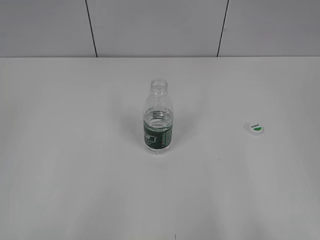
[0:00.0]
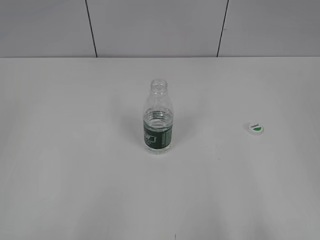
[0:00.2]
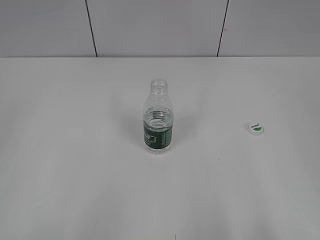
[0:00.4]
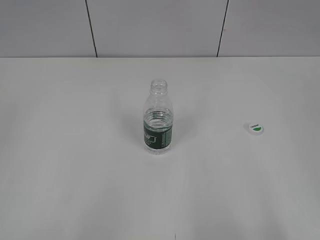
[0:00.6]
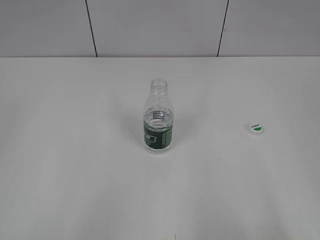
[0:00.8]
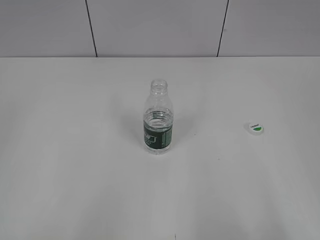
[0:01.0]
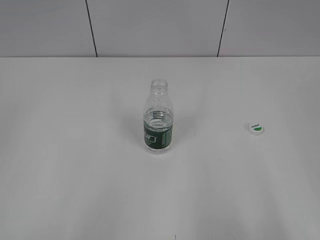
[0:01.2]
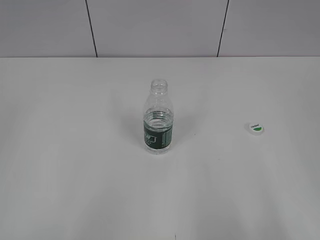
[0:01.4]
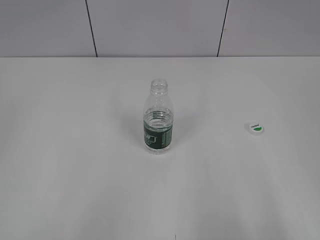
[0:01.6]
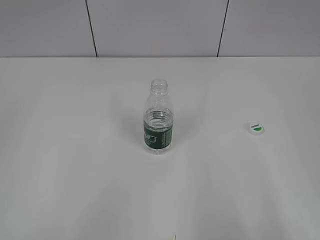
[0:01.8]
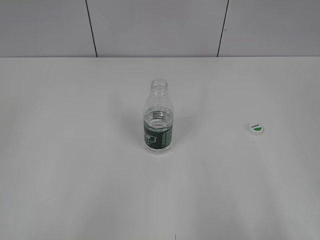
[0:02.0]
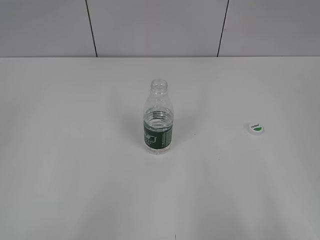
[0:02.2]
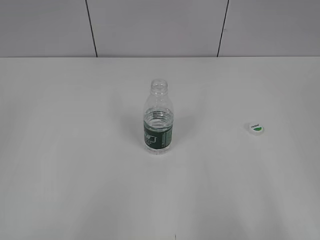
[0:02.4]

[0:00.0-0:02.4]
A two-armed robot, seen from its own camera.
0:01.2 to 0:02.4: Both grippers stay put.
